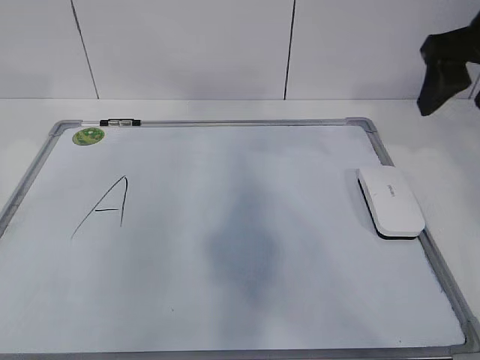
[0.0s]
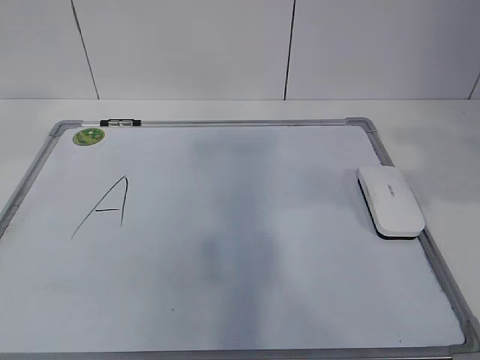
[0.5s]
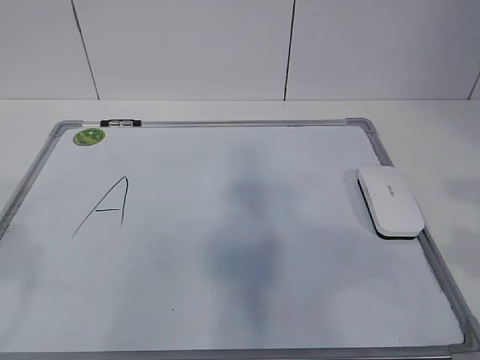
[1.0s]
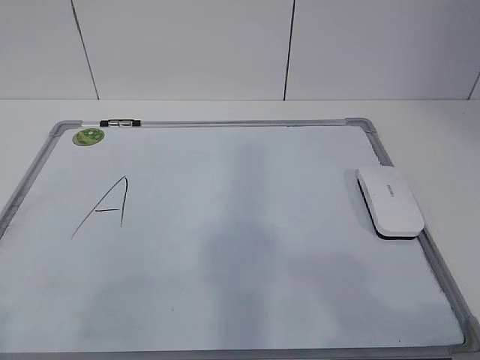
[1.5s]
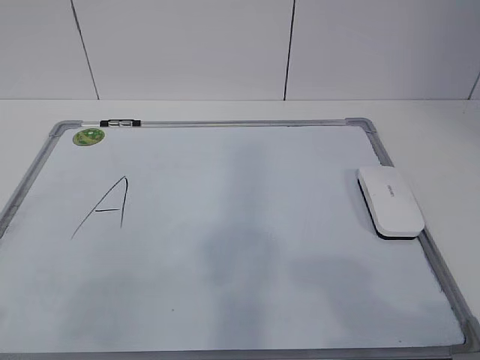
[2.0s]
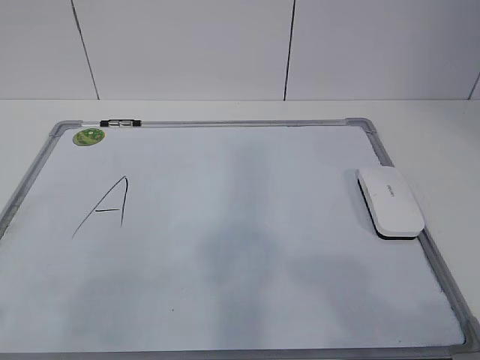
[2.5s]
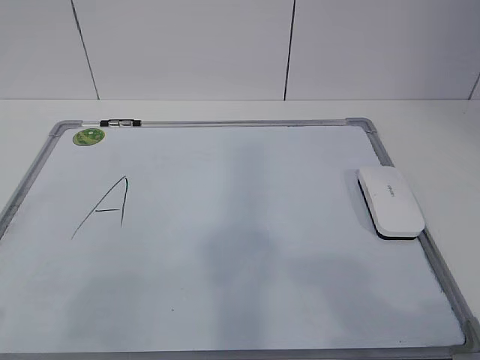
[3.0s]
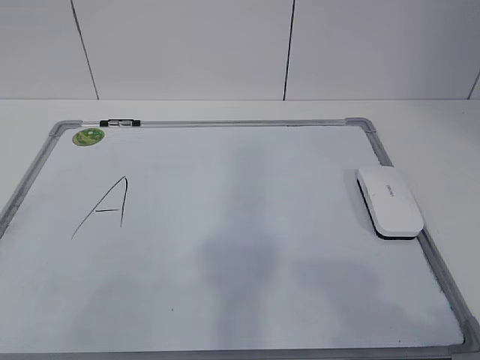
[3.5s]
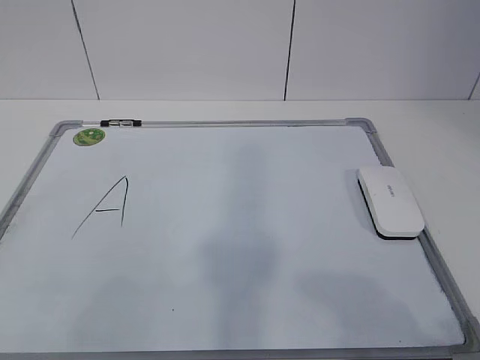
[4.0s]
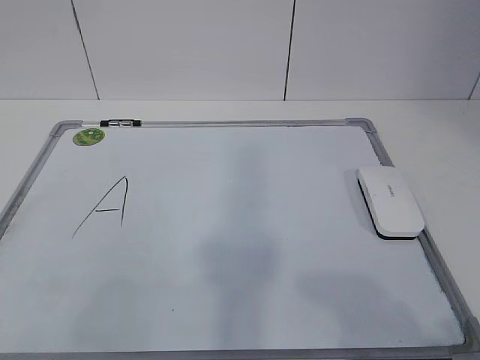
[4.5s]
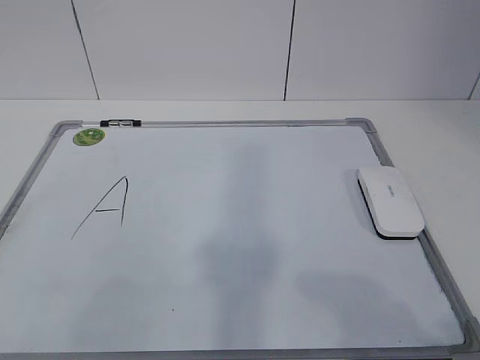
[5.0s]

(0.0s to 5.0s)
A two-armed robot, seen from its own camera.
Task of the whole recording: pick up the eraser on the blackboard and erase the letter "a".
0.0s - 2.5s: The two grippers go approximately 30 cm backward.

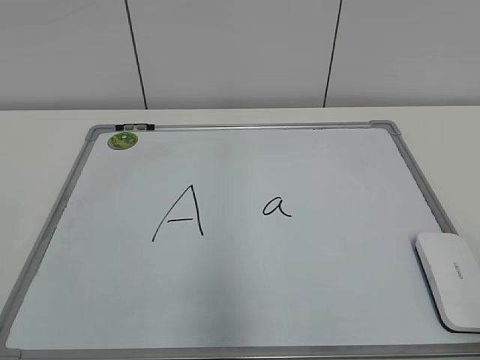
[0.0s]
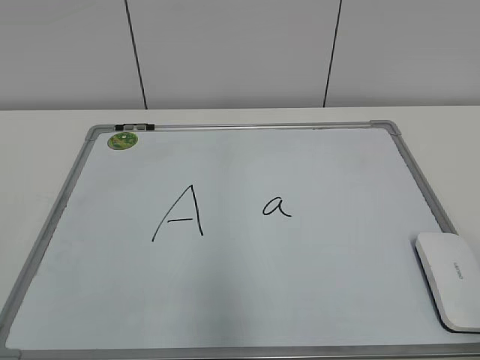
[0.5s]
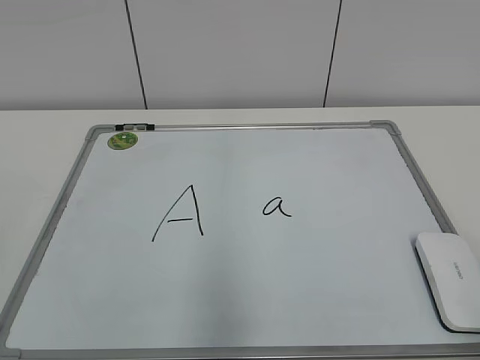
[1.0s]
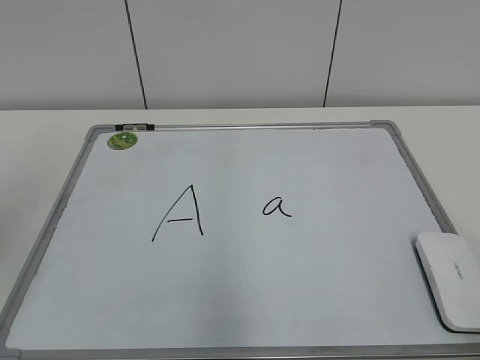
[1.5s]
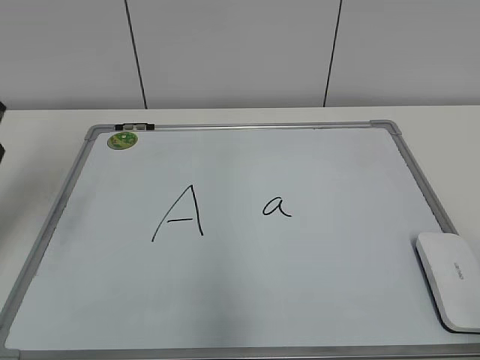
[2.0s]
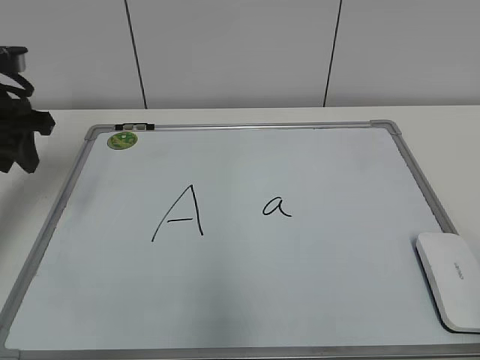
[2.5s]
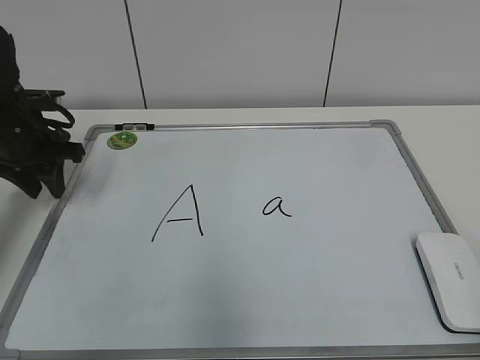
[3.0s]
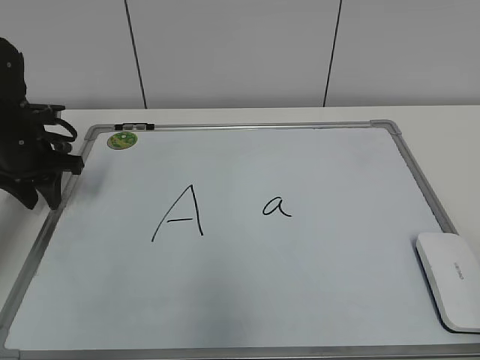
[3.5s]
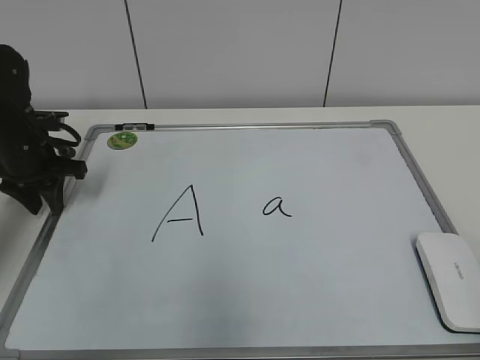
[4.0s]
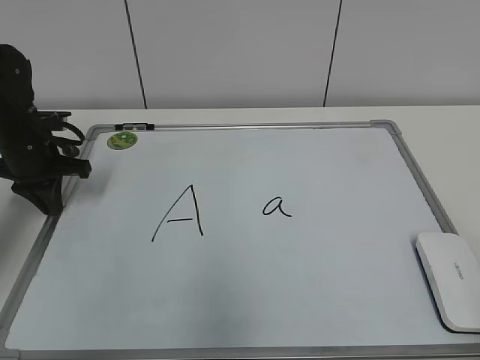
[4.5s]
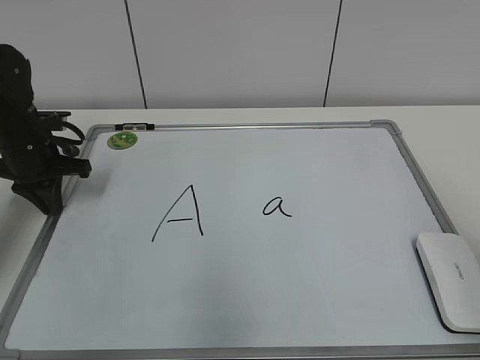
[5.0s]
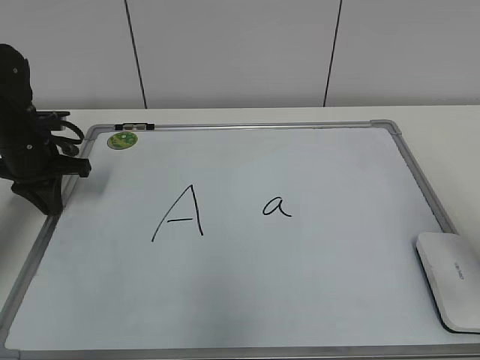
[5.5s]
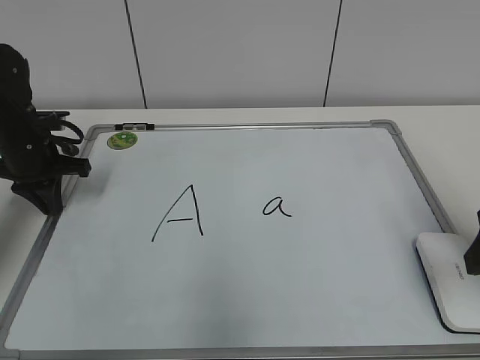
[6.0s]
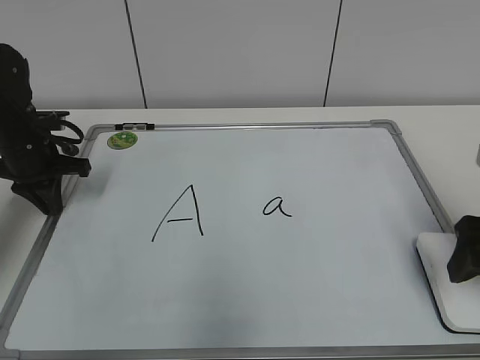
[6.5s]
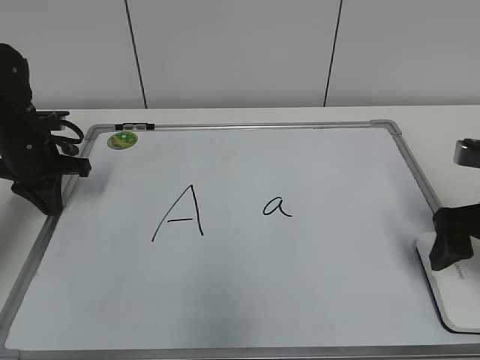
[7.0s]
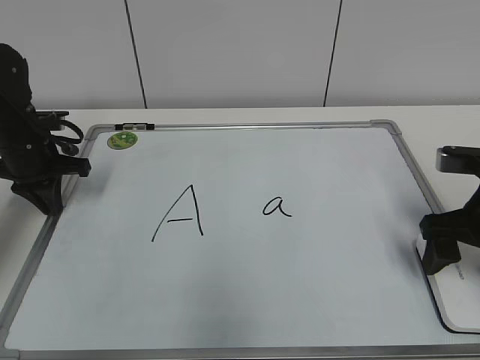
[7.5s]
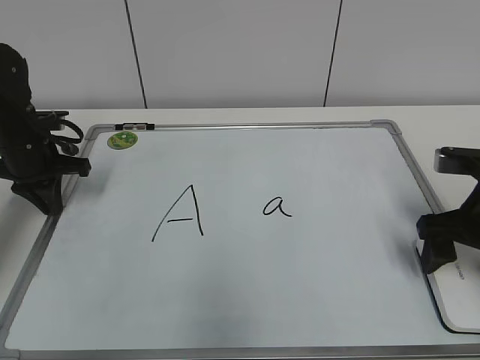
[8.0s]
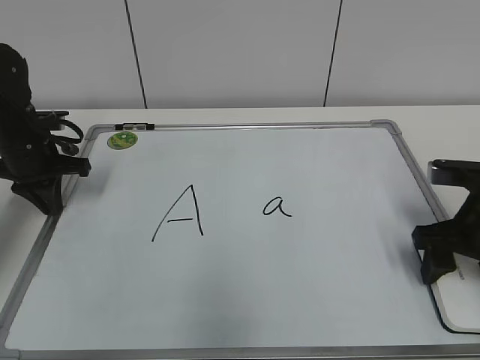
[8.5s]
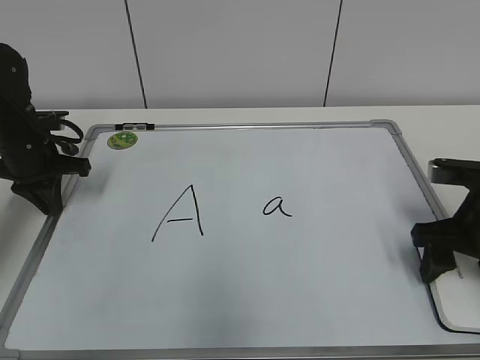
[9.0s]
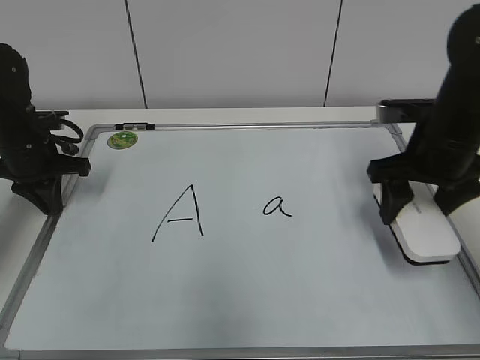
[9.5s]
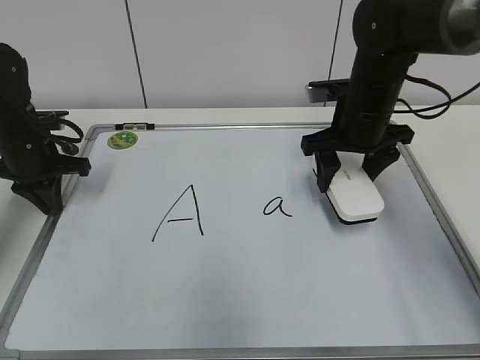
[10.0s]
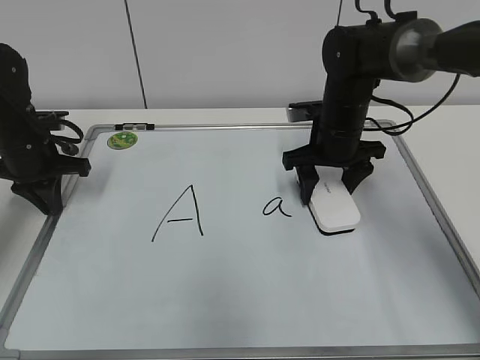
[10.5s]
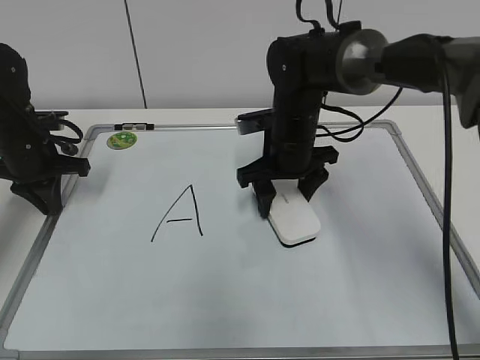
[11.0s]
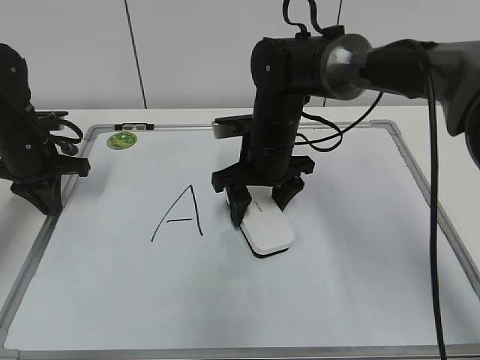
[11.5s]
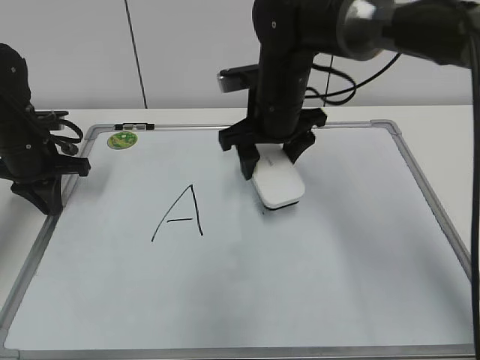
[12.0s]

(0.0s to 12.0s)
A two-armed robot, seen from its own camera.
Task of the whole recording: pick up the eraser on the blackboard and erase the letter "a".
Step, 0.0s - 4.0s: Hold the drawing board steady with your left hand.
Step, 4.5s - 8.5s: Grab the eraser with your right hand.
Step, 9.5s - 11.5s: Erase the letter a with your right hand.
2.0s - 4.0s: The left gripper goes roughly 20 cm downward and forward.
4.0s - 6.0s: The right gripper heads forward, covering some 20 cm. Meanwhile the left gripper closes.
6.0s - 8.0s: The right gripper travels downward and forward by approximately 10 cm, and opens.
8.0s - 10.0s: The right gripper shifts approximately 15 cm forward and to the left, and closes.
10.0s - 12.0s: The right gripper is displaced to the left by some 10 cm.

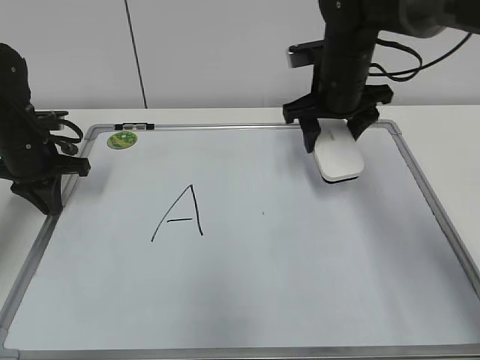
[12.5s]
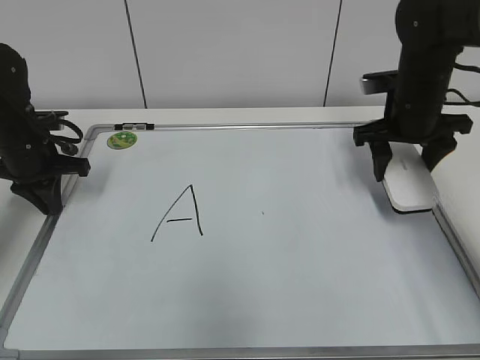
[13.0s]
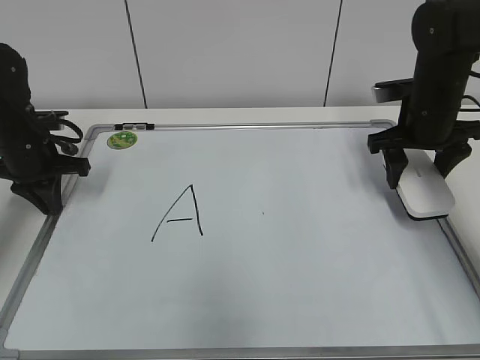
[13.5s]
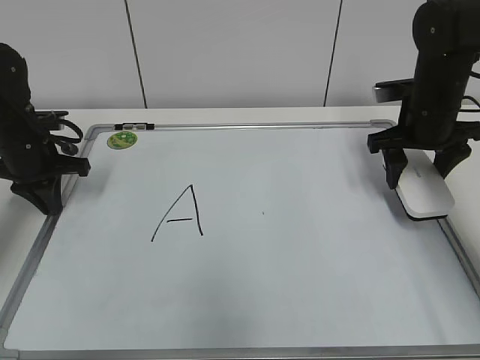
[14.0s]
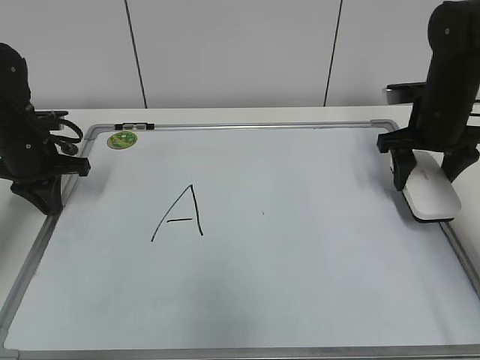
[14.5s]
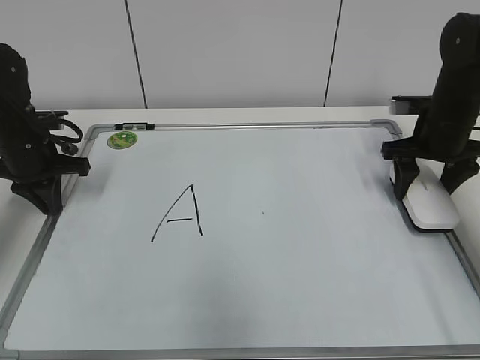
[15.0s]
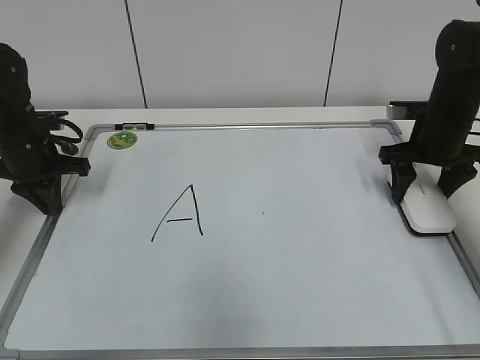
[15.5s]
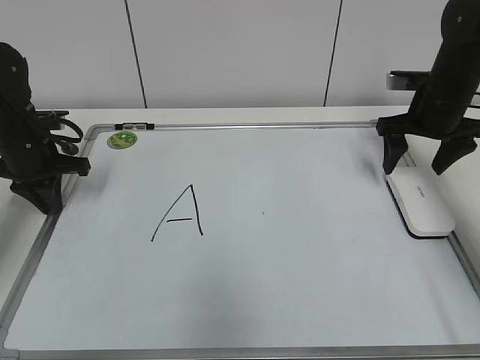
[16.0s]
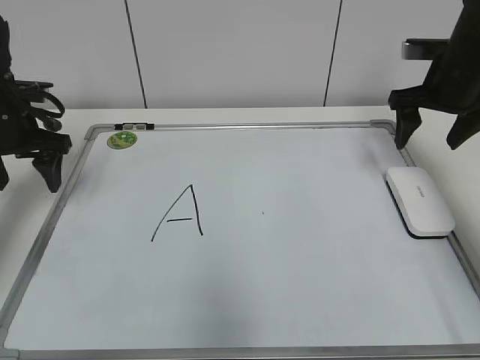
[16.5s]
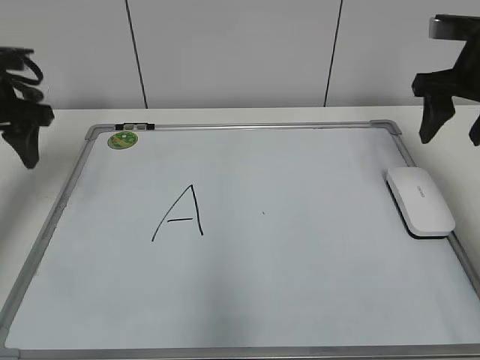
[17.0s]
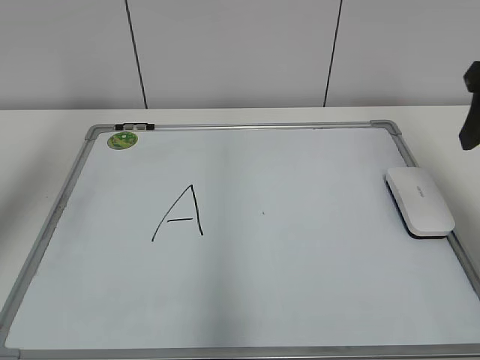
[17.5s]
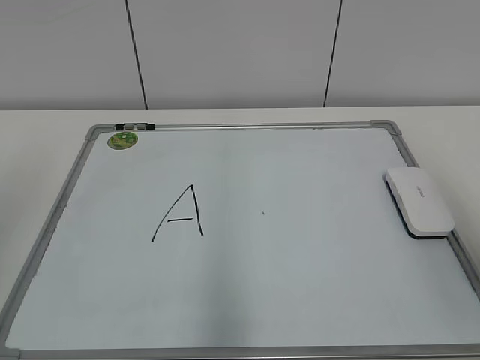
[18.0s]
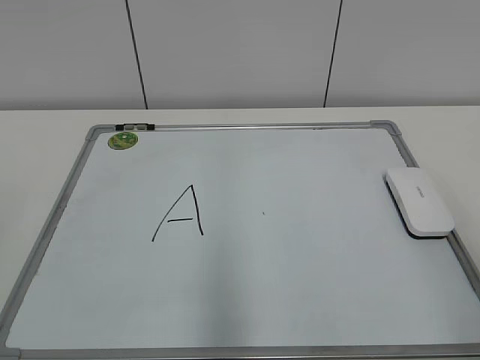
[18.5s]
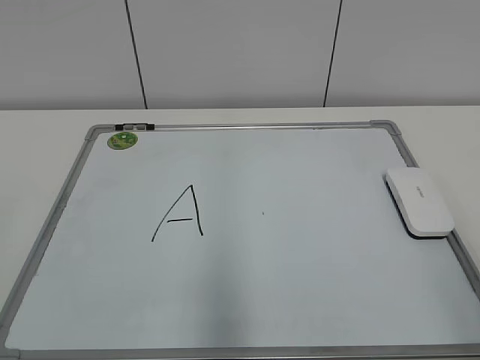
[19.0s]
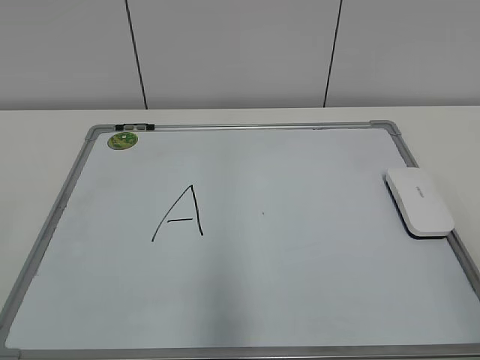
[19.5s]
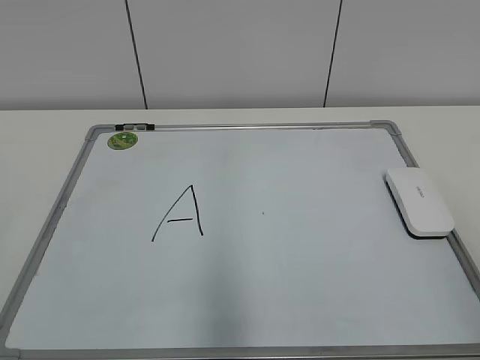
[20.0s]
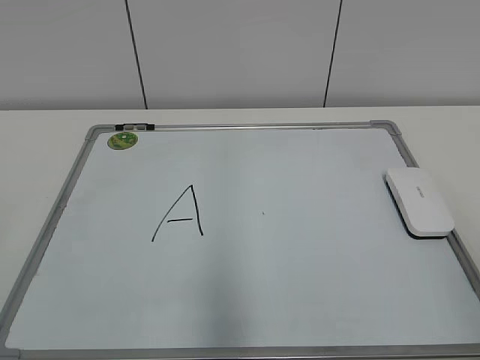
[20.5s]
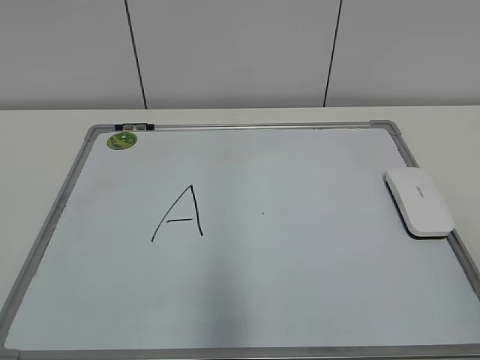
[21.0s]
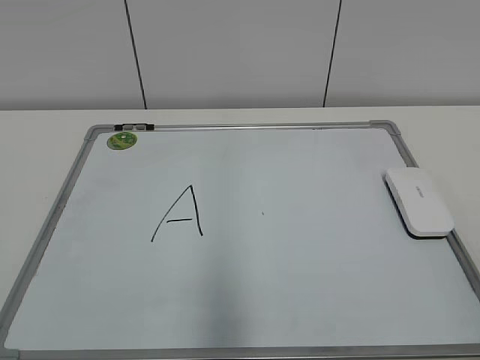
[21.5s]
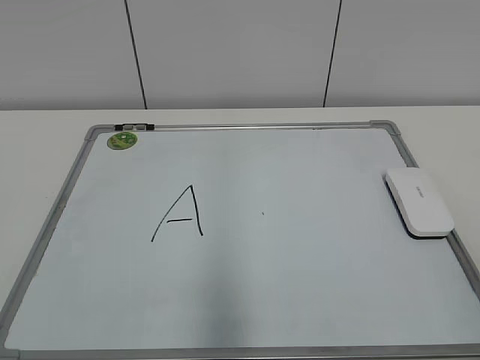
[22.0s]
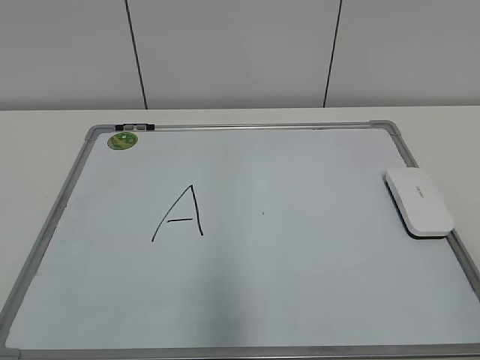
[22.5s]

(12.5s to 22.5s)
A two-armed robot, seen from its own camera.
Task of the whole recording: pick up the eraser on the blackboard and erase the letter "a".
Step, 12.5s - 15.0s: Put down the eraser with your right hand.
12.5s - 14.5s: The right gripper heads to the right, covering roughly 15 cm.
14.5s - 16.5s: The right gripper ends up about 5 cm from where it was, and opens; the left gripper heads upward, covering some 5 cm, and opens its fingers.
16.5s - 18.5s: Both grippers move backward, approximately 35 cm. The right gripper closes up.
